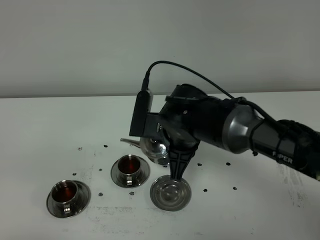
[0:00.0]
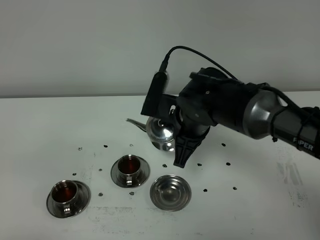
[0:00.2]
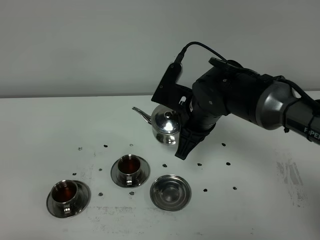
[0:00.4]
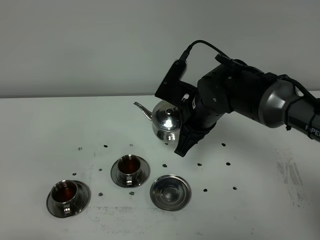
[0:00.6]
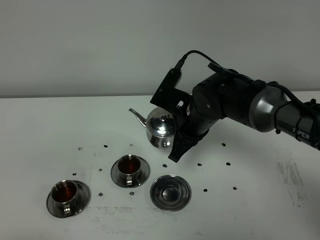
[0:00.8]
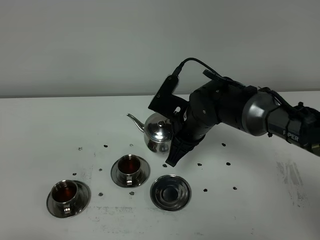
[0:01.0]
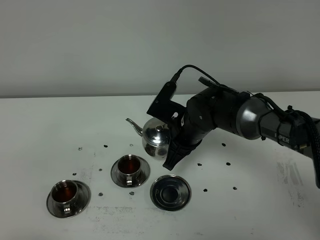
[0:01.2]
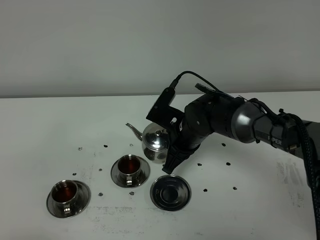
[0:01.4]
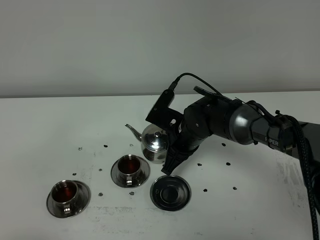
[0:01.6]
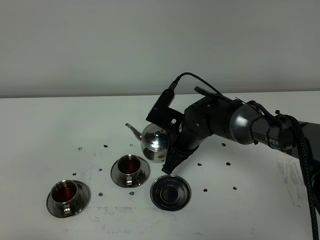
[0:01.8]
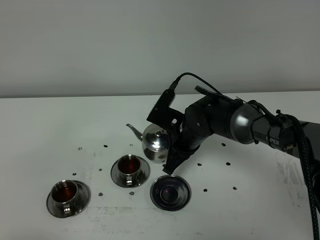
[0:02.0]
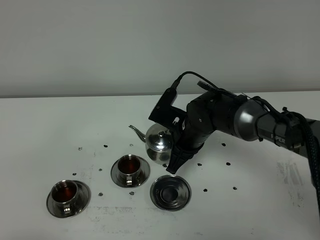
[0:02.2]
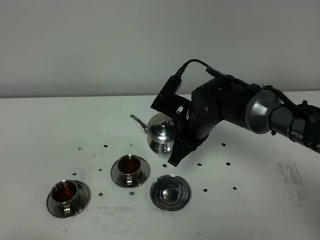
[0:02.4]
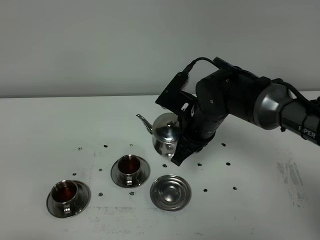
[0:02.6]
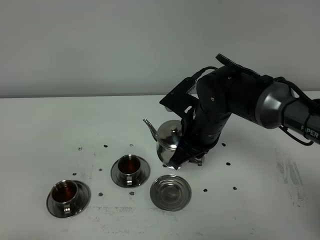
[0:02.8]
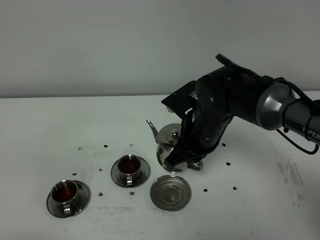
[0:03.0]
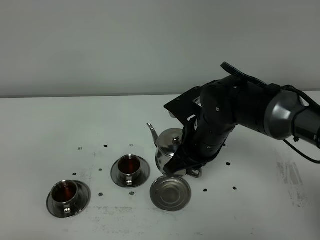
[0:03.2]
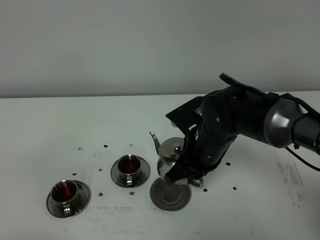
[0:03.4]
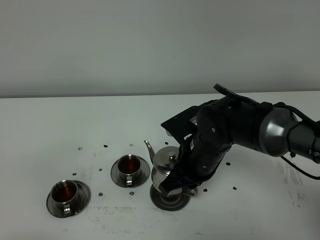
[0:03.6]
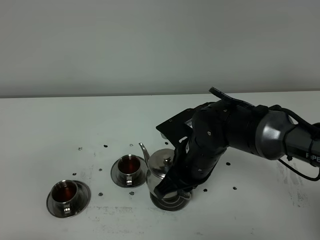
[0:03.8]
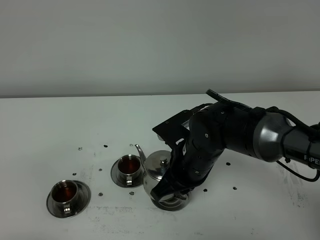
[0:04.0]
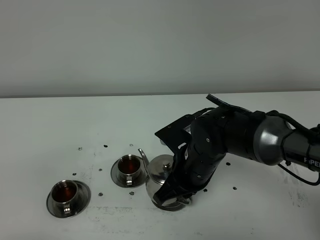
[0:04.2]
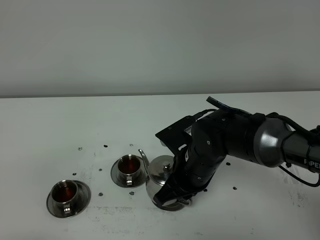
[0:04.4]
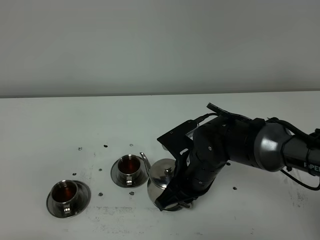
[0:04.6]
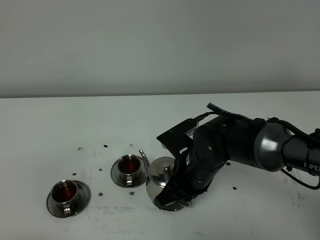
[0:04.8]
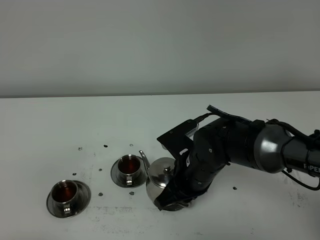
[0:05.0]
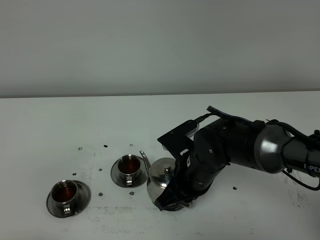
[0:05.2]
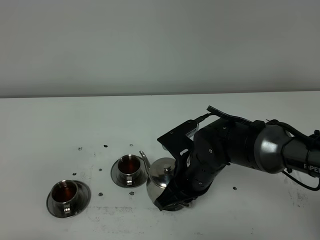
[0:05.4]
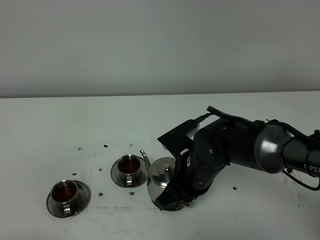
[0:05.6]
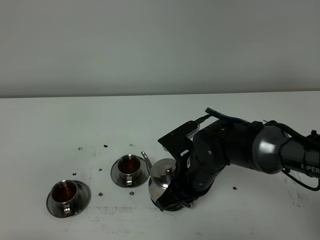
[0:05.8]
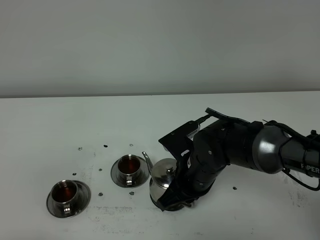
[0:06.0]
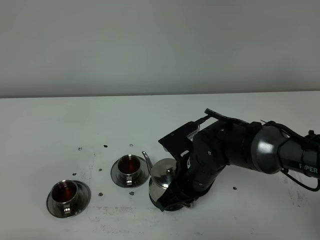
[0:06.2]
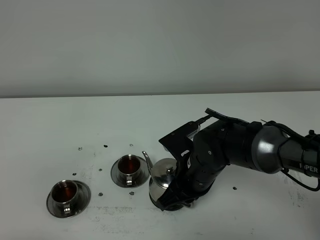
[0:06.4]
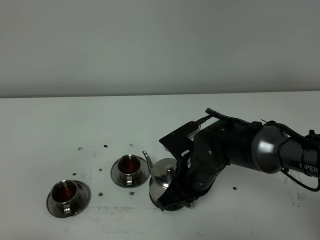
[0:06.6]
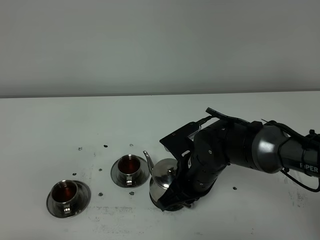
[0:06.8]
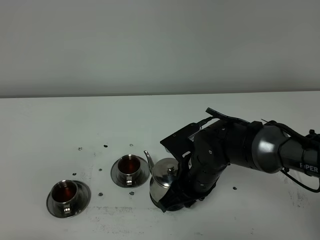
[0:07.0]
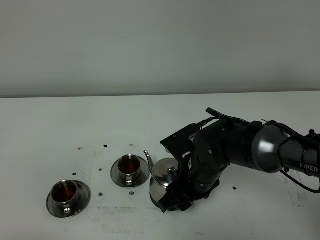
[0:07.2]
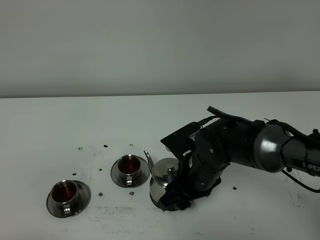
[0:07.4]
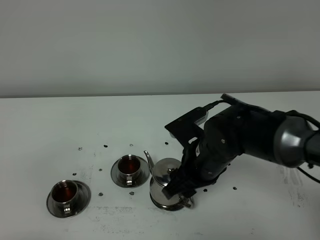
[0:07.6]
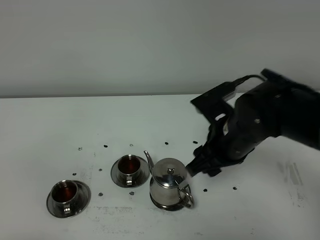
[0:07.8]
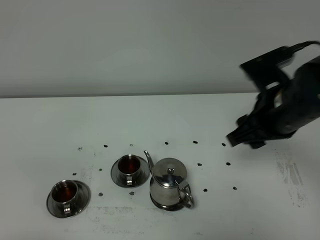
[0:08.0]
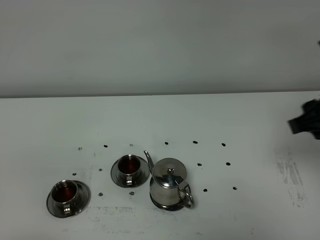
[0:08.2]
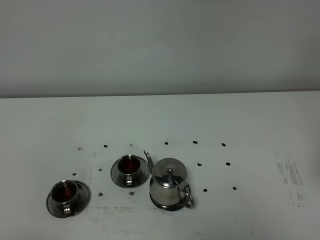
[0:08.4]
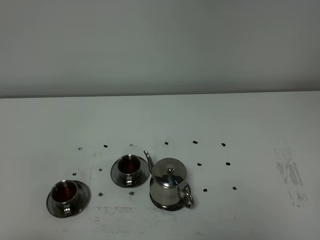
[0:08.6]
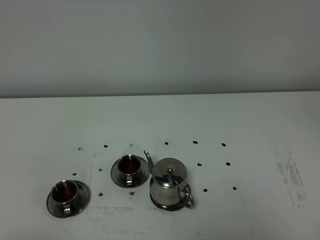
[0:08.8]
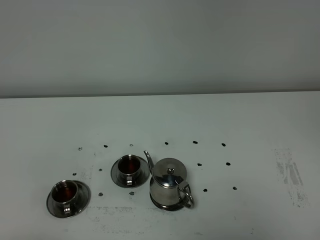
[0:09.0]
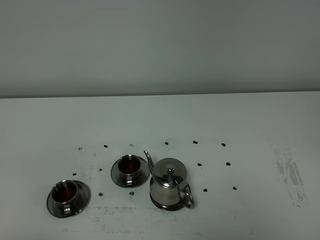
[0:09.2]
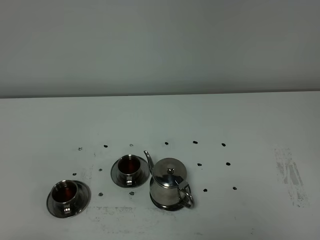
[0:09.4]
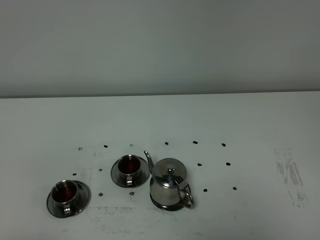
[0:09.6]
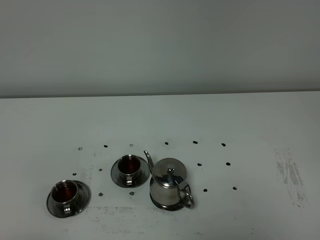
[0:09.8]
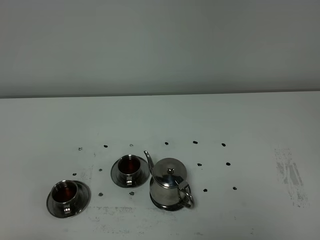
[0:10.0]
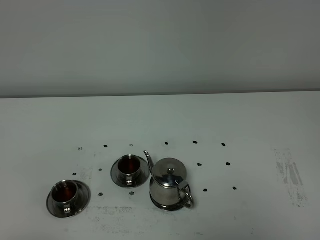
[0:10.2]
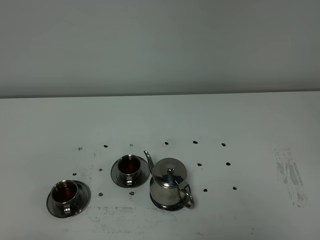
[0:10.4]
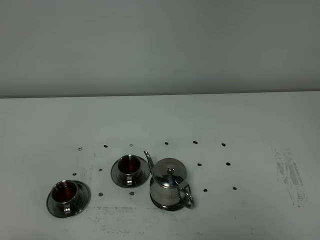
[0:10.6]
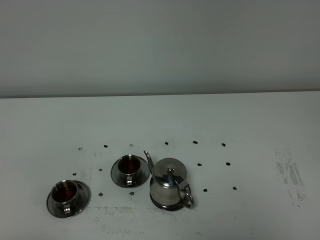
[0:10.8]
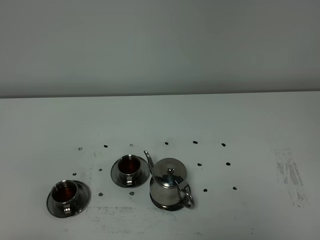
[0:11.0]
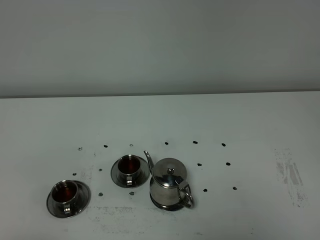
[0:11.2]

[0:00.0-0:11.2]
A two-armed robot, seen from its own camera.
Task of the whole recording: grasp the stainless steel teapot and pour the tea into the two stainless steel teacups one by one, put the stainless steel teapot back in its original place.
0:00.0 to 0:01.6: The right gripper shifts about 10 cm downward and forward.
0:01.6 to 0:03.2: The right gripper travels upward and backward by approximately 10 cm.
0:03.2 to 0:04.8: The right gripper changes place by about 5 cm.
0:04.8 to 0:06.4: The two grippers keep their place.
0:06.4 to 0:08.0: The right gripper shifts approximately 20 cm upward and to the right, and opens up.
0:08.0 to 0:09.6: The right gripper shifts roughly 30 cm backward.
0:09.6 to 0:11.2: The two grippers keep their place.

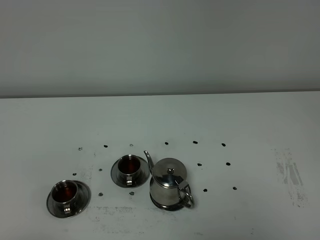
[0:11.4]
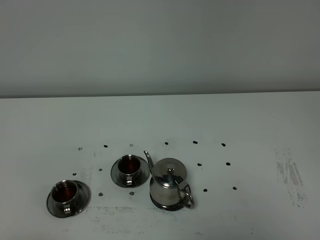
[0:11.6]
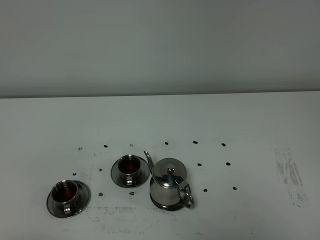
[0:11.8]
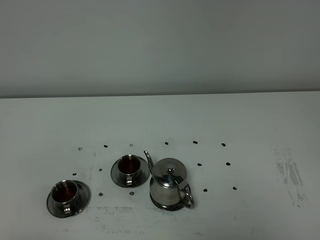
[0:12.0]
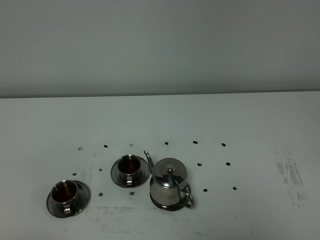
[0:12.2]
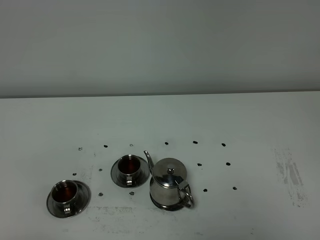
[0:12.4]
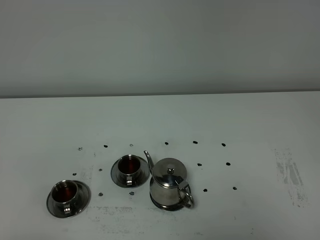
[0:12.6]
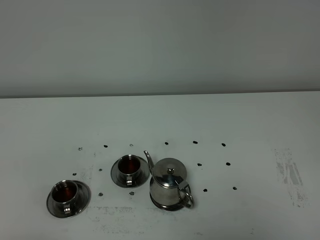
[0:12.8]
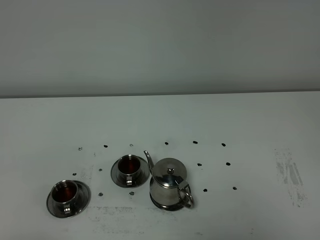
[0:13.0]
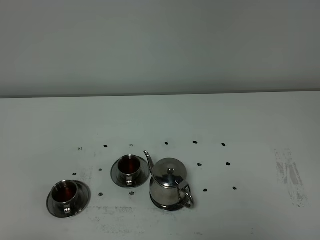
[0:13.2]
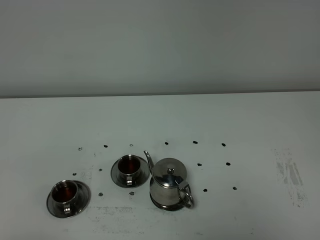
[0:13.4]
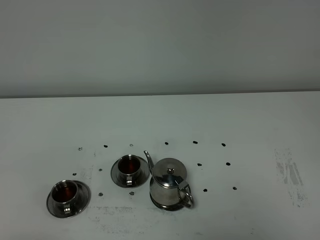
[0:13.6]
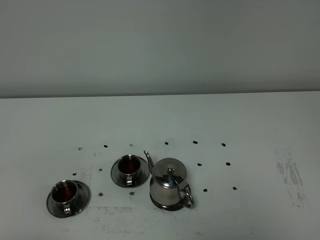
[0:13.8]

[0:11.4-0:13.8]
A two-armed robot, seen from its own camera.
Task of the whole recording: grasp the stainless steel teapot and pour the tea into the two stainless steel teacups one by one, put the stainless steel teapot back in its original place.
0:11.4 to 0:13.8: The two grippers keep their place.
